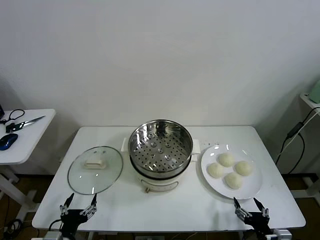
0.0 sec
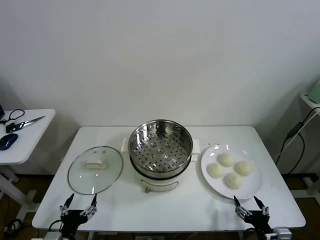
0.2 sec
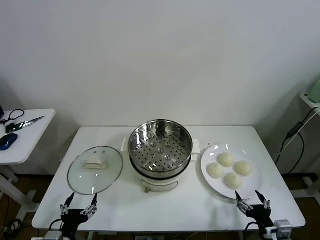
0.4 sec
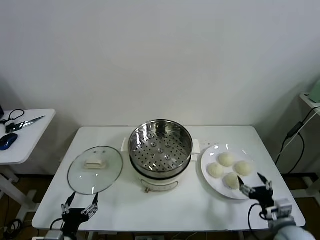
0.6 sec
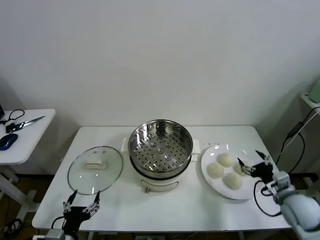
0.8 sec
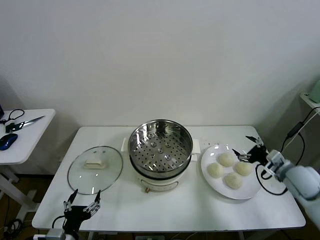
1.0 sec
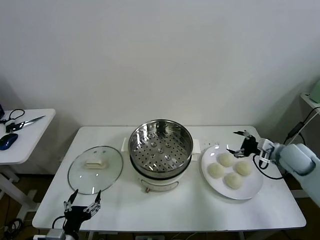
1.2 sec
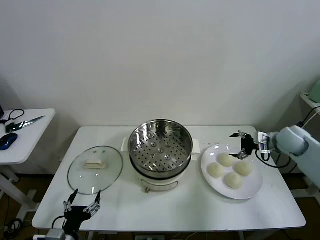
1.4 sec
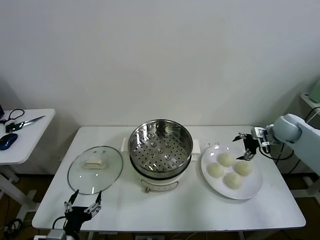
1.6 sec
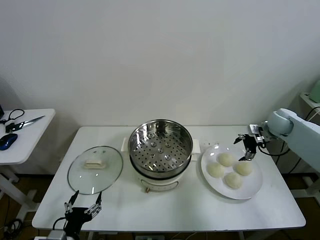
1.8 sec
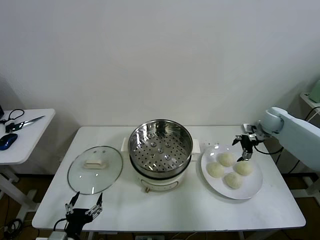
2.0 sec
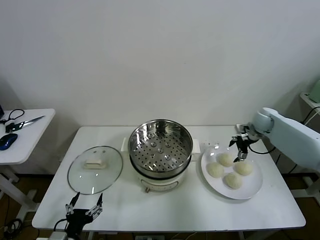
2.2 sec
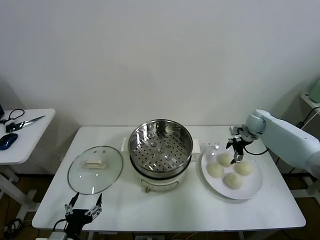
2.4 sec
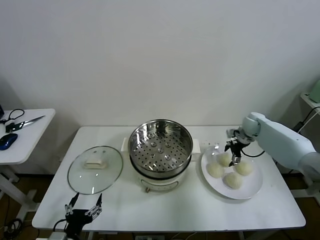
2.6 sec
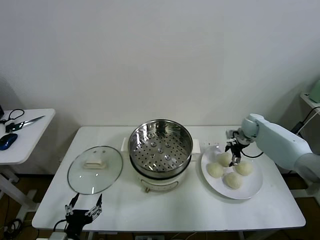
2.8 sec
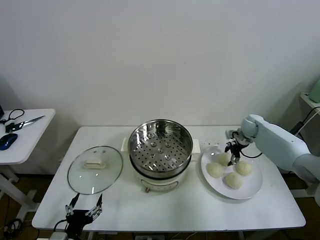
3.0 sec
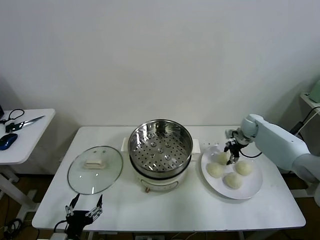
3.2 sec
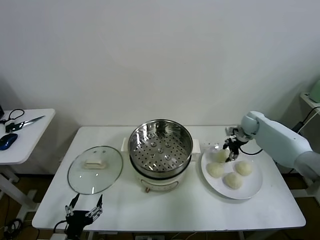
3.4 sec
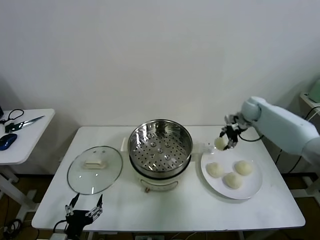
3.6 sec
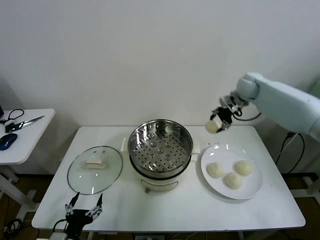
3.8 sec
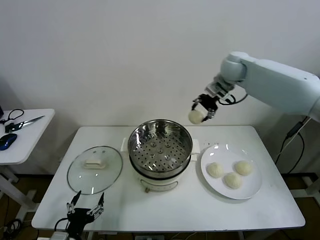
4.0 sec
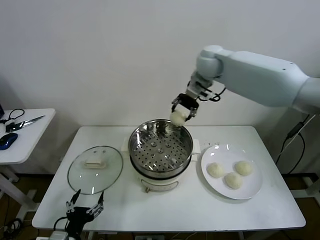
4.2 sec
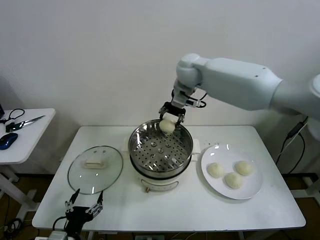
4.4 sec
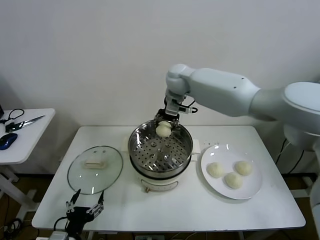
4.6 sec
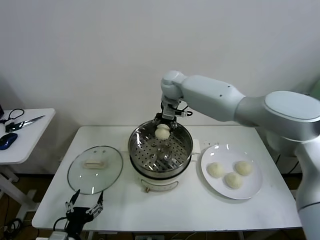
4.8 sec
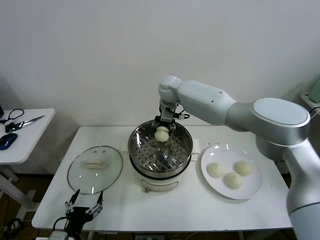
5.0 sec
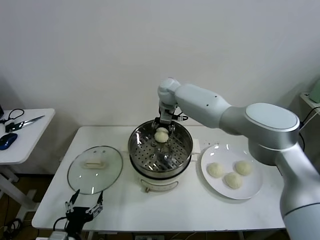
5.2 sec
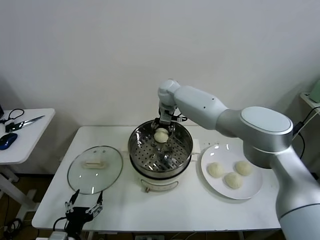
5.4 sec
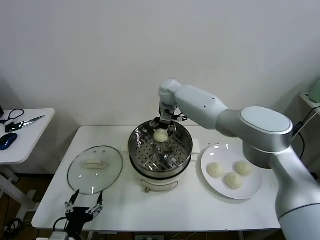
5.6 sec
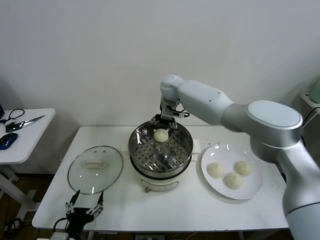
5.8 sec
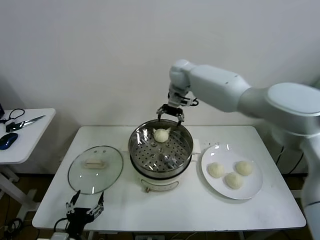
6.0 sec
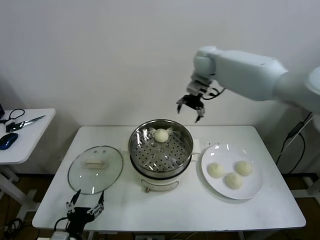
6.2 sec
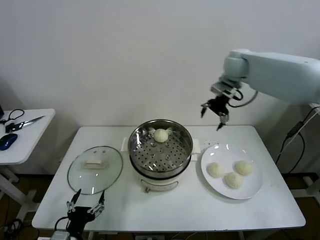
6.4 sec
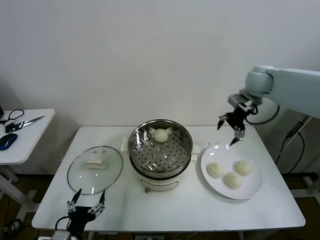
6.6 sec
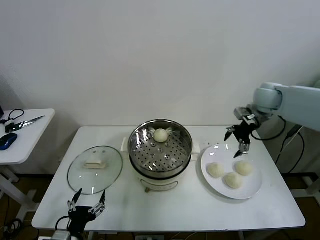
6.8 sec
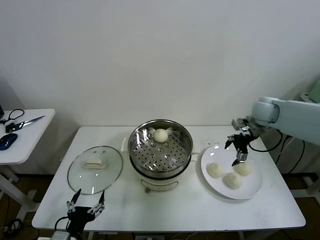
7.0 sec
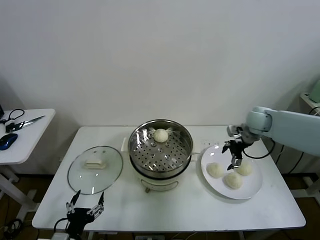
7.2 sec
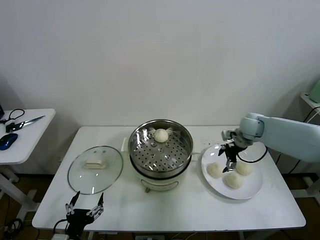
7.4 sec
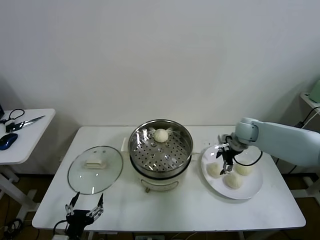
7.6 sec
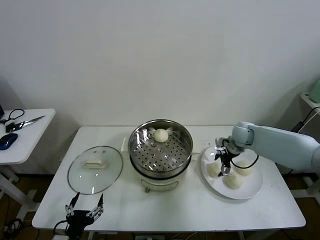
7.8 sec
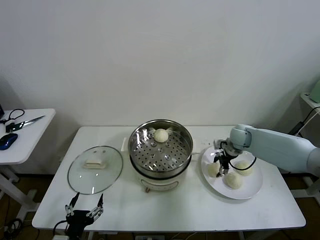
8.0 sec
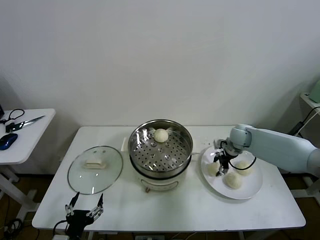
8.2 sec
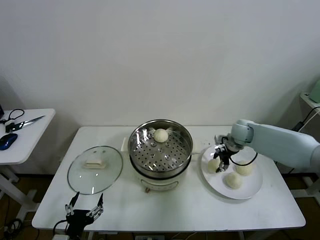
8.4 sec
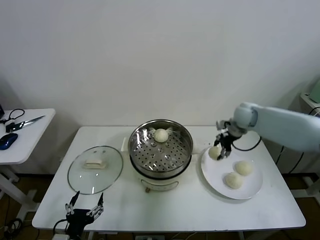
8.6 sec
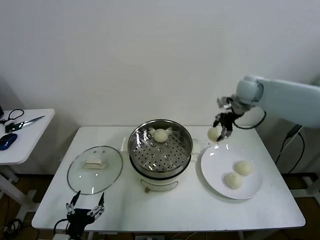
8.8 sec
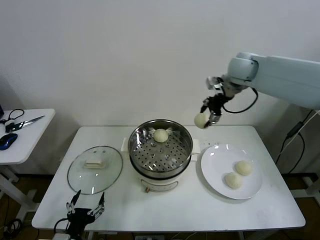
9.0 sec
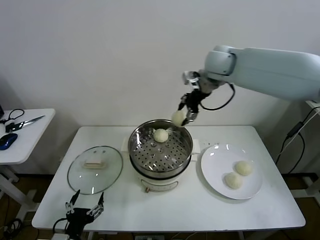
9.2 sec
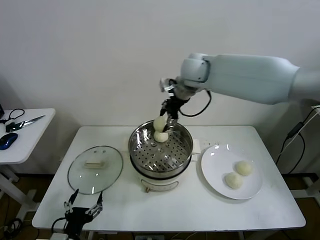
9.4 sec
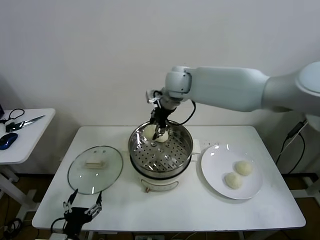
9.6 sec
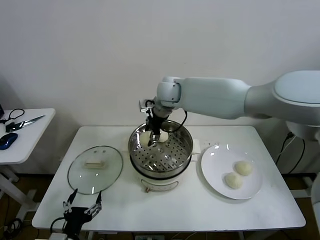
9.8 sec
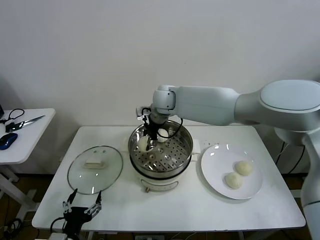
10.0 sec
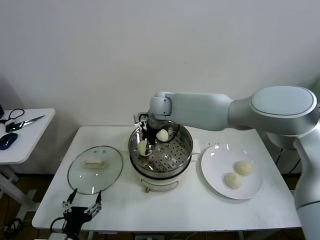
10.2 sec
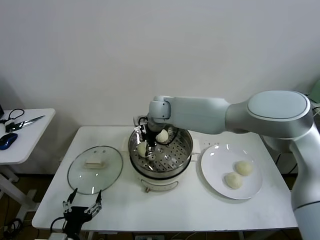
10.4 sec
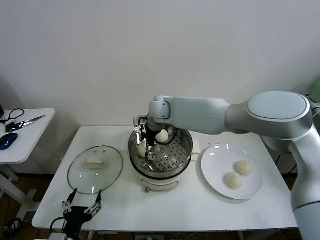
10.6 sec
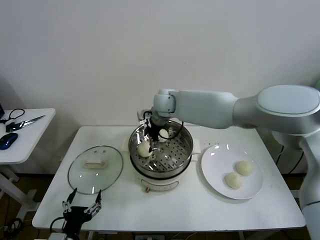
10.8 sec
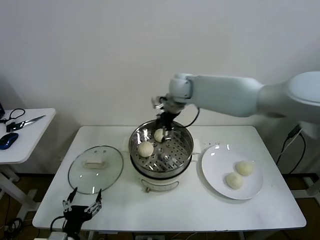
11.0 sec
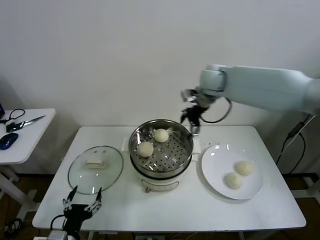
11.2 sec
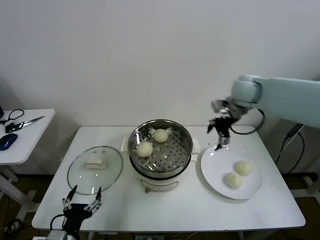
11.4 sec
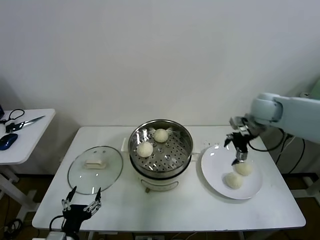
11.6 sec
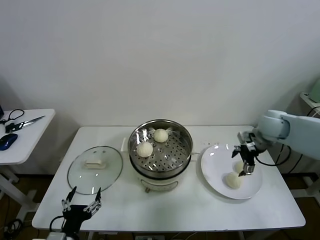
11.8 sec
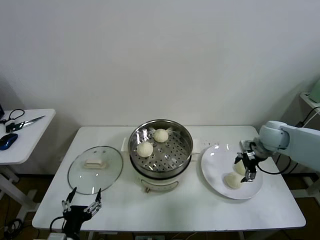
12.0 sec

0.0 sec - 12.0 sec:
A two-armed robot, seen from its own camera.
Task of the whole recording: take steamed baozi put them in steamer then cover it.
Step, 0.0 sec - 3.0 sec: Grasp the baozi in the plate with right gripper.
Step, 3.4 sec - 5.4 sec: Place the baozi on the steamer with right gripper.
Step, 5.6 sec - 8.0 sec: Grasp the baozi in the plate with right gripper.
Step, 8.2 sec - 10.6 sec: Place the baozi on the steamer with right gripper.
1.6 sec - 3.0 sec: The right gripper moves downward, forward and to the left, approximately 10 cm, and closes its fingers.
3.0 sec - 4.4 sec: The right gripper moves to the left and upward, roughly 40 cm.
4.4 sec - 6.0 sec: The right gripper moves about 10 cm downward and comes back, and opens.
6.0 sec - 7.6 sec: The right gripper heads downward, to the right and backward, covering roughly 35 cm.
7.6 sec - 9.0 sec: The right gripper travels upward and to the left by approximately 30 cm, and closes its fingers.
9.0 sec - 10.4 sec: The right gripper goes some 25 cm to the left and downward, and opens its fingers.
10.4 sec - 12.0 sec: The right gripper heads to the right, covering about 40 cm, and opens.

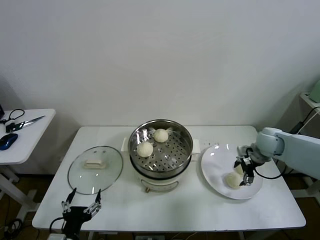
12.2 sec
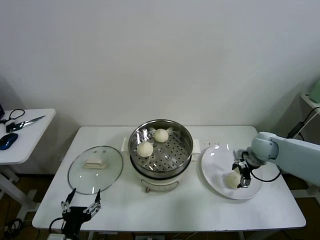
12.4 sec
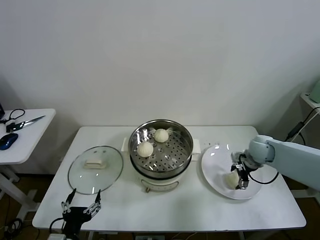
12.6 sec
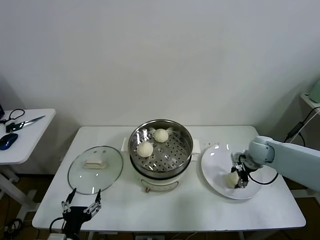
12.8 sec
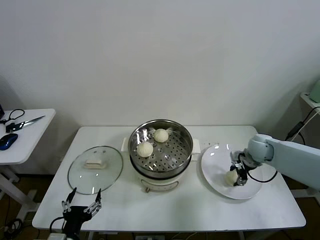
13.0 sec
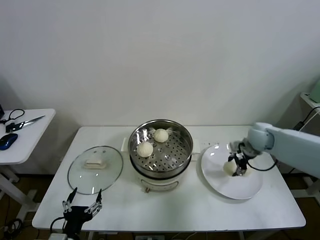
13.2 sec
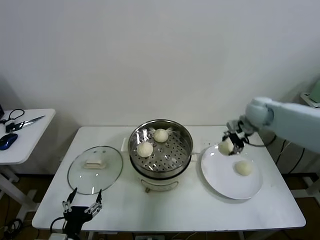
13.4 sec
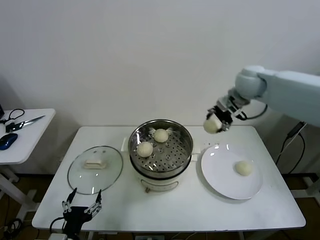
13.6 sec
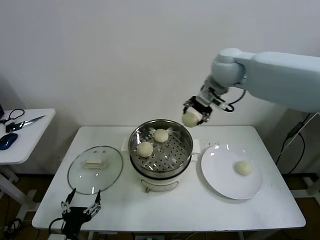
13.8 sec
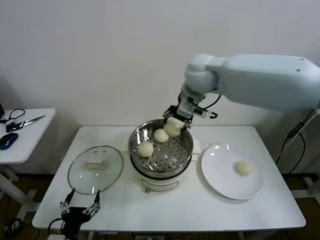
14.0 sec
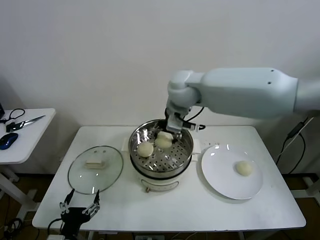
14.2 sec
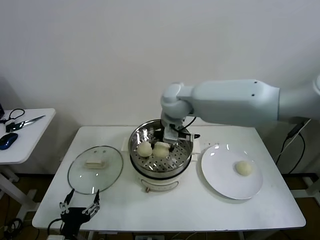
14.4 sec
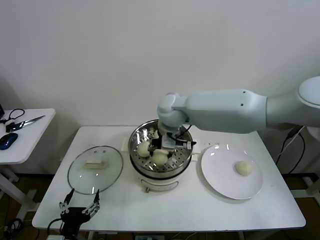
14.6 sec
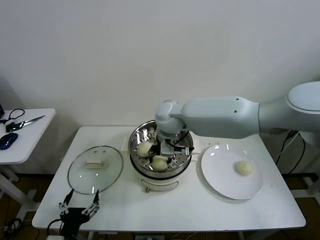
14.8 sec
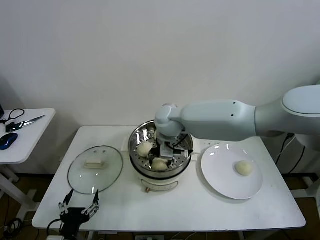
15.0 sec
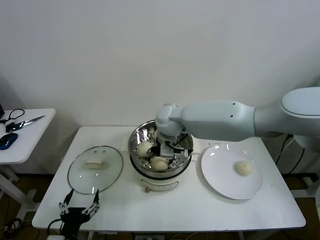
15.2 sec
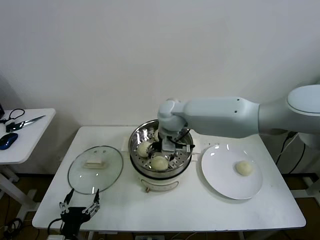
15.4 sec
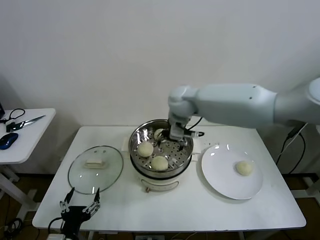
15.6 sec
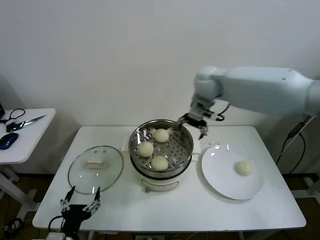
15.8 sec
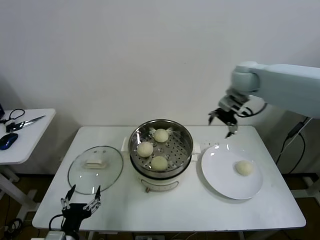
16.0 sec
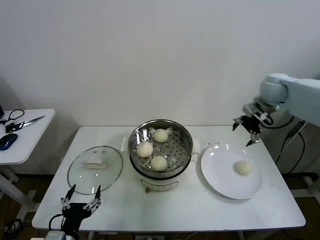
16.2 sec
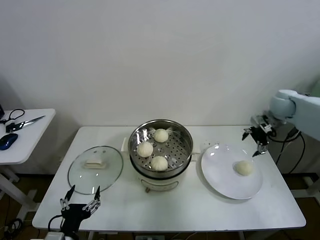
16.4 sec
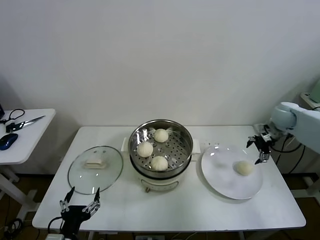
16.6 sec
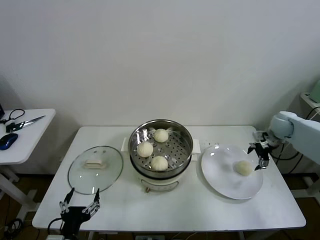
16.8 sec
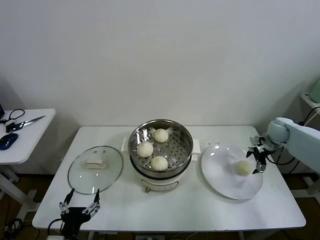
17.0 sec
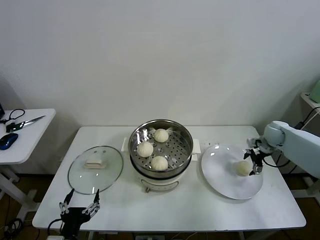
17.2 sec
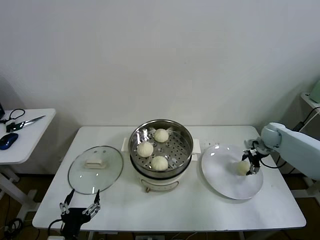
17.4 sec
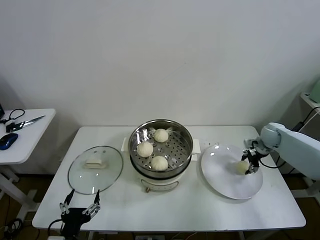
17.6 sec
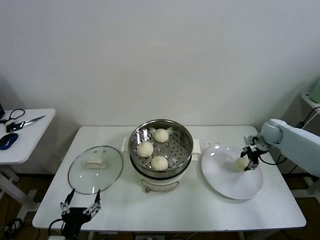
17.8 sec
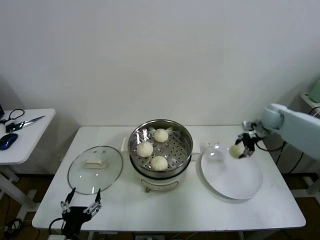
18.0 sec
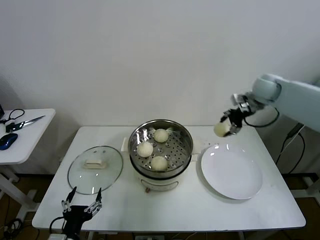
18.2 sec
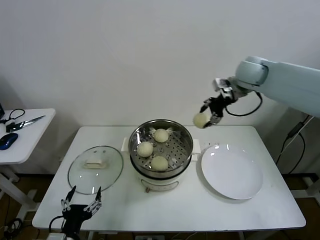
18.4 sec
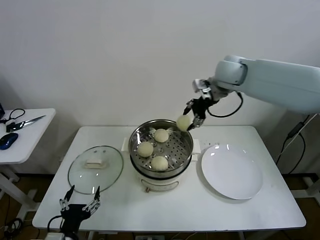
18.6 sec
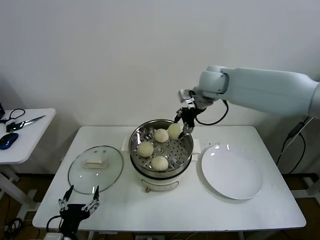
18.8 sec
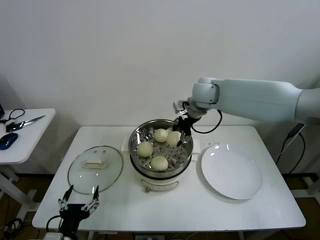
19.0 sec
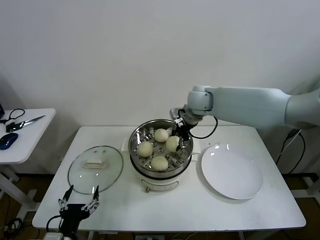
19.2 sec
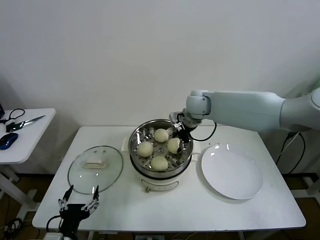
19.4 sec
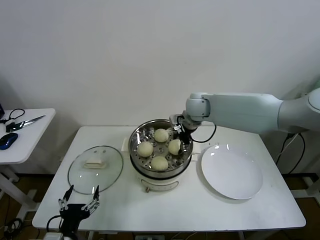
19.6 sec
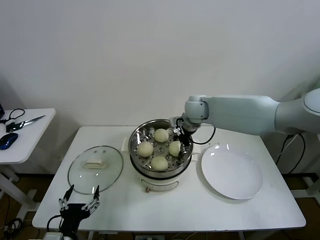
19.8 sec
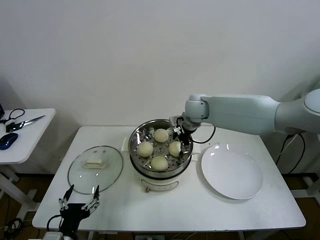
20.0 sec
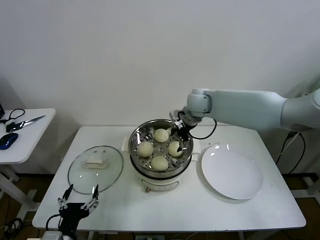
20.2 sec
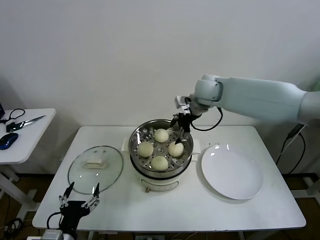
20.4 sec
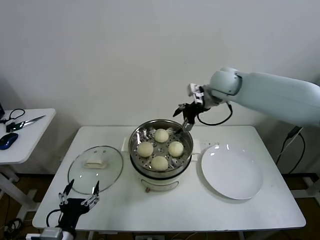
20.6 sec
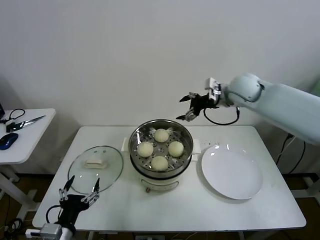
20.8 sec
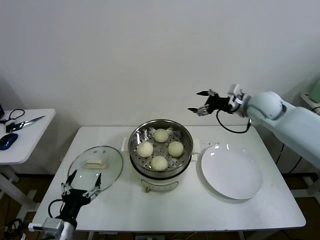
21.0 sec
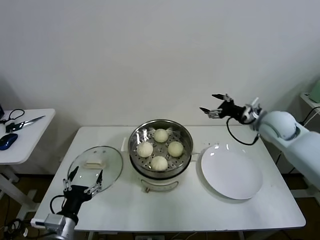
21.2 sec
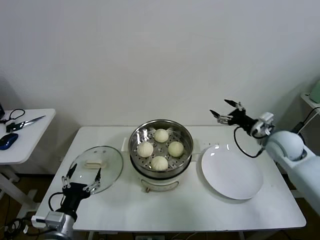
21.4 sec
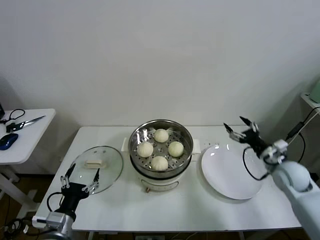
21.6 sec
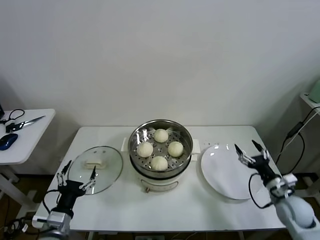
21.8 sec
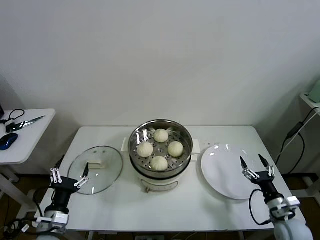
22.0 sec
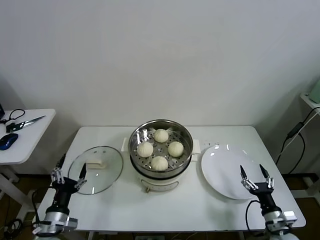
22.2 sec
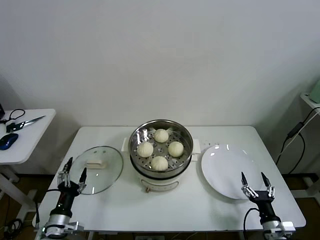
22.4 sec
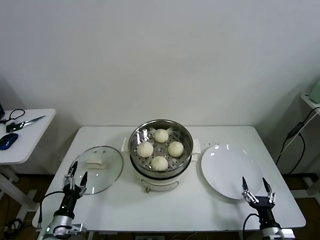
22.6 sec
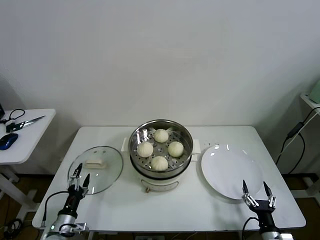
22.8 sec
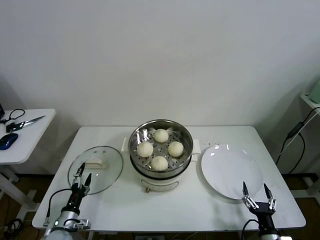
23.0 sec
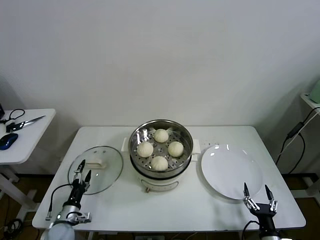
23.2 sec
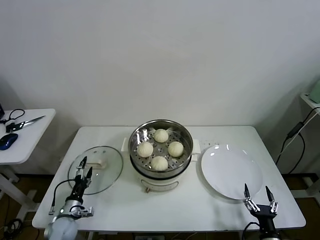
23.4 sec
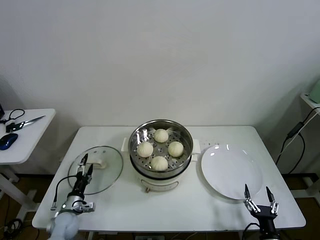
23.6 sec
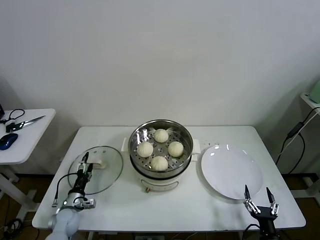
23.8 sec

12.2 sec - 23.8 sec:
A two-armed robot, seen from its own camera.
Task of the whole recording: take steamed baozi put them in steamer then cover it.
Step, 13.0 sec - 15.0 sec: Place the baozi on the steamer with right gripper.
Step, 15.2 sec - 17.4 sec: Grasp the baozi in the plate with right gripper.
Step, 17.6 sec - 20.0 sec: Place the baozi on the steamer with right gripper.
12.2 sec - 13.6 sec: The right gripper moves upward and to the left, some 25 cm, and closes.
13.6 sec - 15.0 sec: The right gripper shifts approximately 25 cm to the left and downward.
15.0 sec - 16.6 sec: The right gripper heads to the right, covering approximately 40 cm, and opens its fingers.
16.6 sec - 18.0 sec: The right gripper travels downward and back again, approximately 10 cm each way, and closes.
18.0 sec - 19.4 sec: The right gripper is displaced to the left by about 30 cm.
19.4 sec - 21.0 sec: The right gripper goes approximately 20 cm to the right, and opens up.
21.0 sec - 22.4 sec: The right gripper shifts approximately 50 cm downward and backward. The left gripper heads downward and to the left, covering about 10 cm.
22.4 sec - 23.8 sec: The left gripper heads downward and forward, covering about 15 cm. The right gripper moves backward, some 5 cm.
